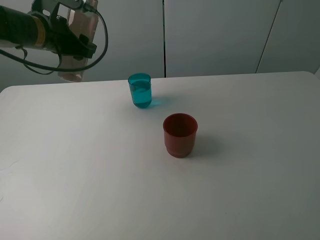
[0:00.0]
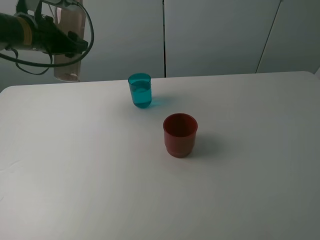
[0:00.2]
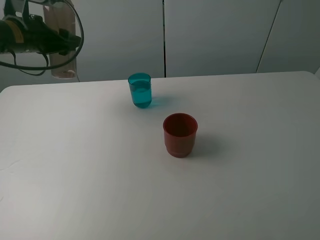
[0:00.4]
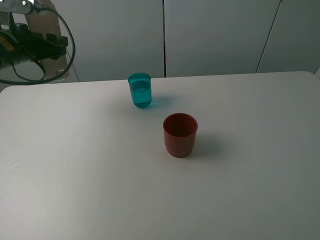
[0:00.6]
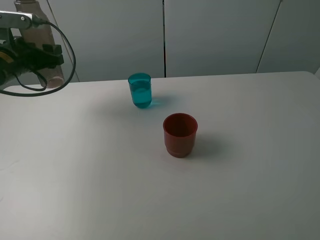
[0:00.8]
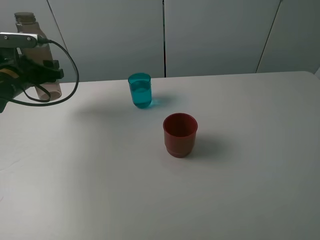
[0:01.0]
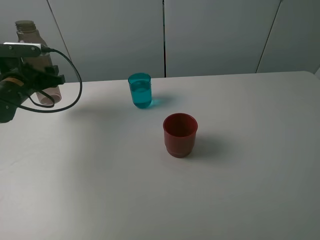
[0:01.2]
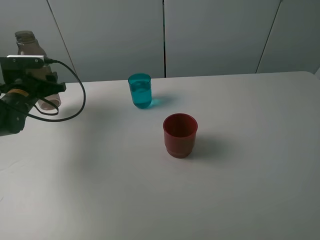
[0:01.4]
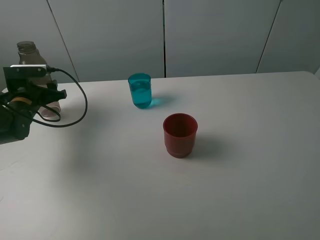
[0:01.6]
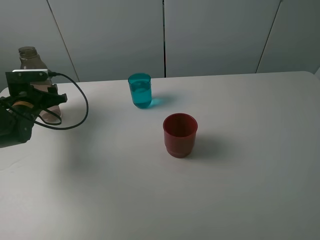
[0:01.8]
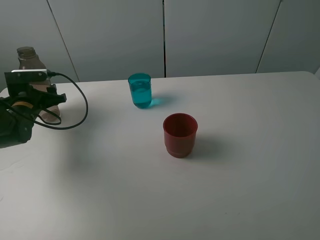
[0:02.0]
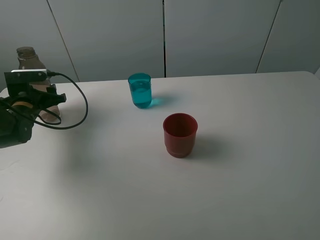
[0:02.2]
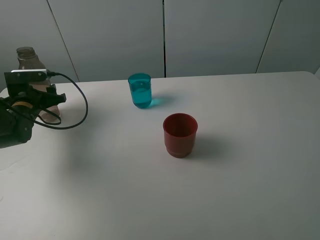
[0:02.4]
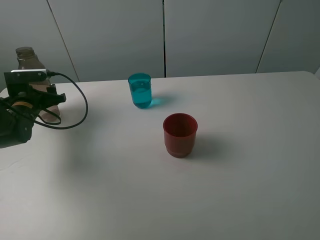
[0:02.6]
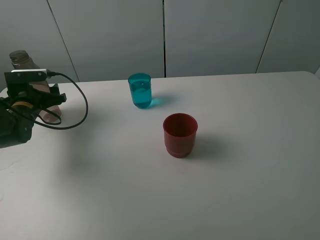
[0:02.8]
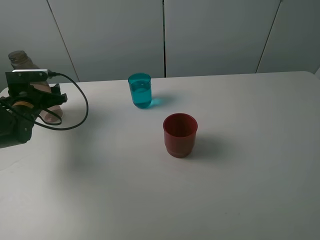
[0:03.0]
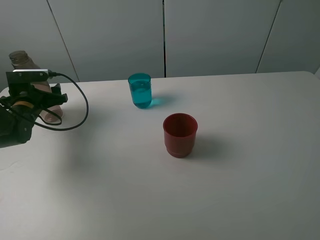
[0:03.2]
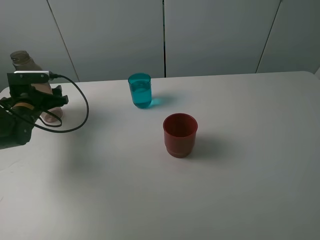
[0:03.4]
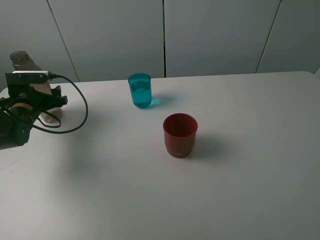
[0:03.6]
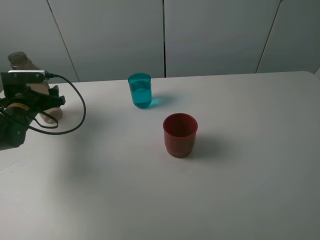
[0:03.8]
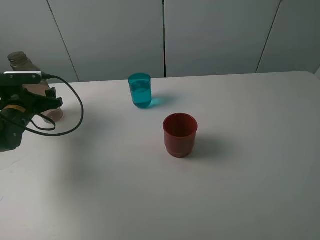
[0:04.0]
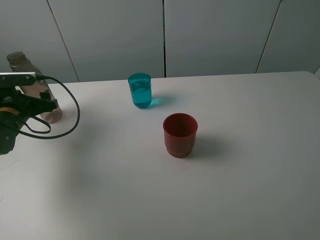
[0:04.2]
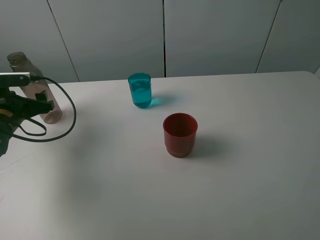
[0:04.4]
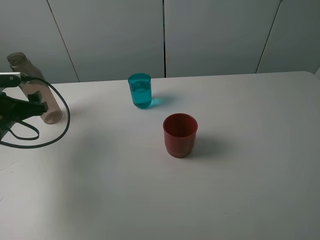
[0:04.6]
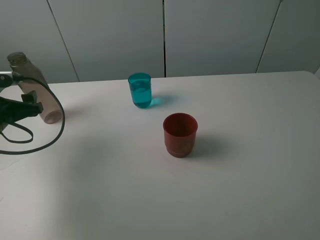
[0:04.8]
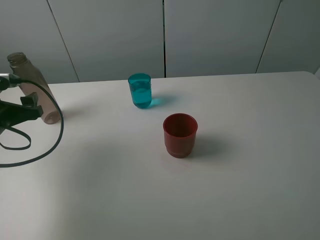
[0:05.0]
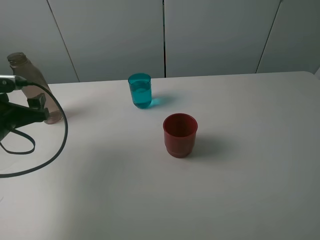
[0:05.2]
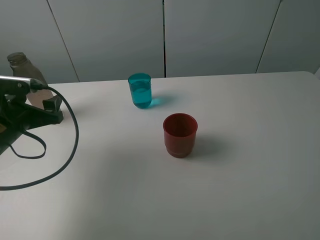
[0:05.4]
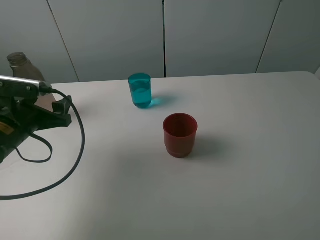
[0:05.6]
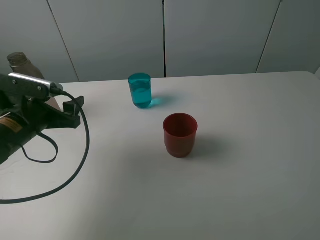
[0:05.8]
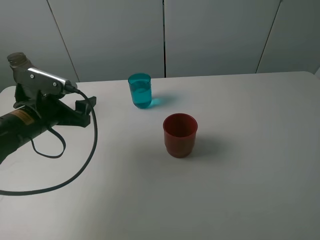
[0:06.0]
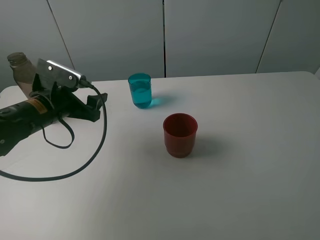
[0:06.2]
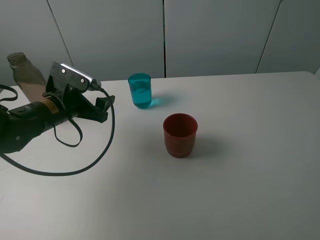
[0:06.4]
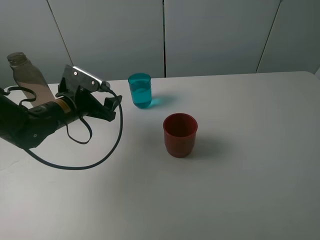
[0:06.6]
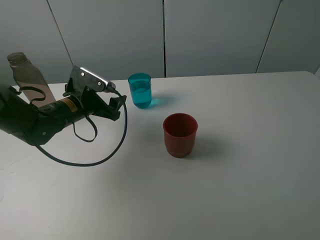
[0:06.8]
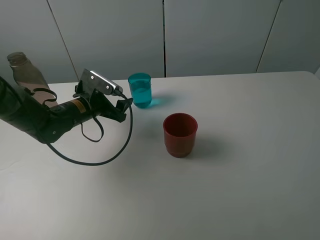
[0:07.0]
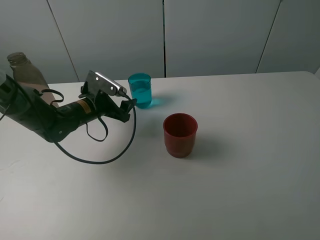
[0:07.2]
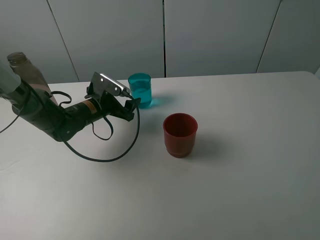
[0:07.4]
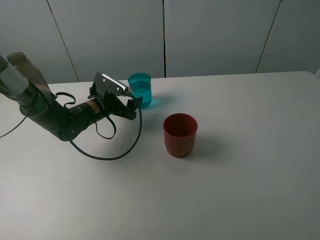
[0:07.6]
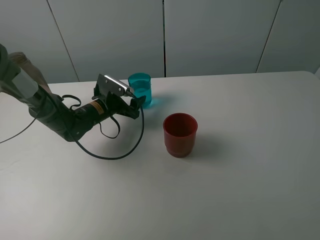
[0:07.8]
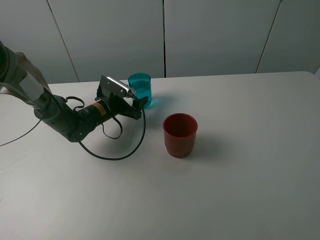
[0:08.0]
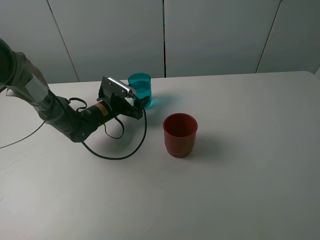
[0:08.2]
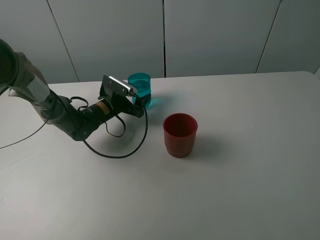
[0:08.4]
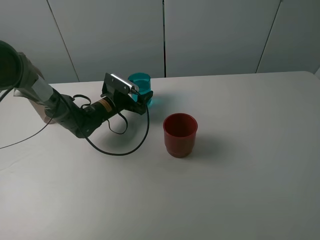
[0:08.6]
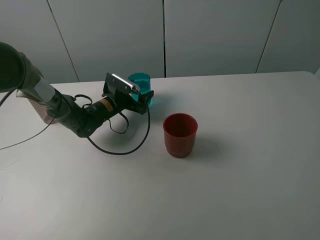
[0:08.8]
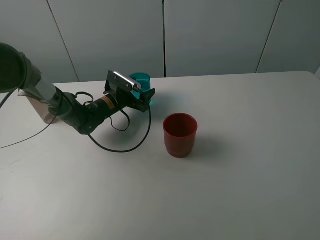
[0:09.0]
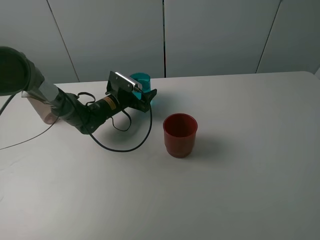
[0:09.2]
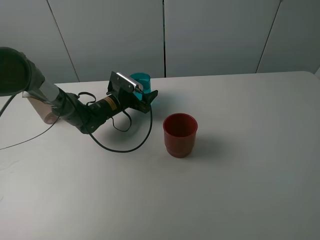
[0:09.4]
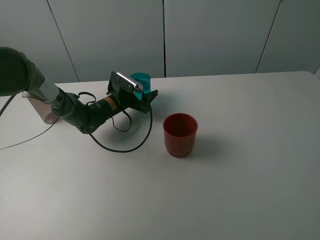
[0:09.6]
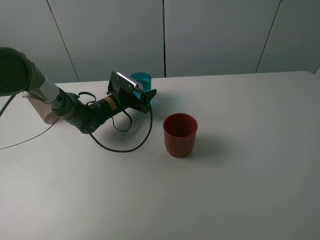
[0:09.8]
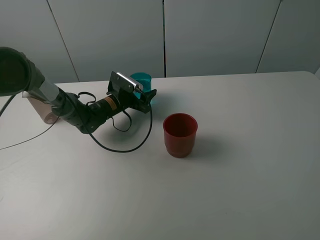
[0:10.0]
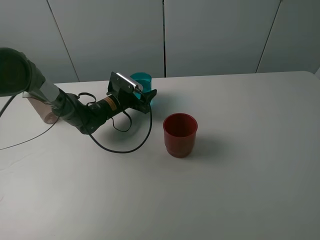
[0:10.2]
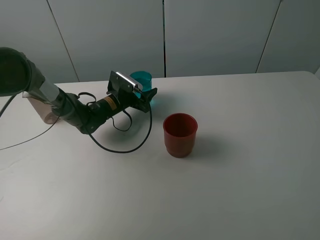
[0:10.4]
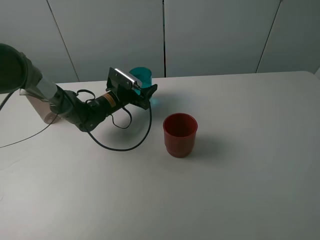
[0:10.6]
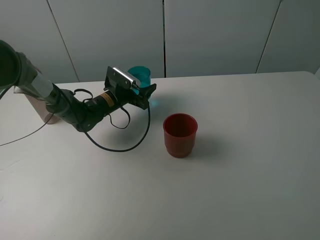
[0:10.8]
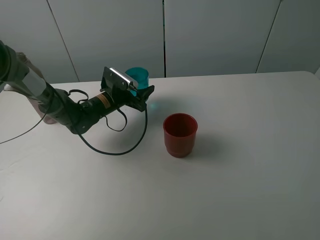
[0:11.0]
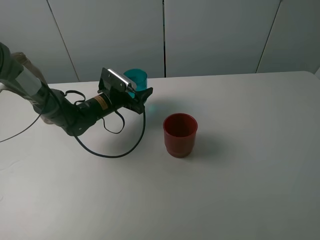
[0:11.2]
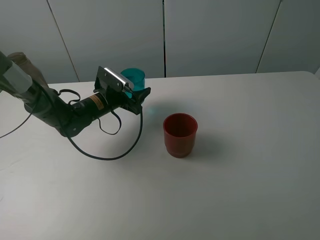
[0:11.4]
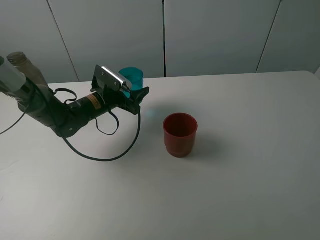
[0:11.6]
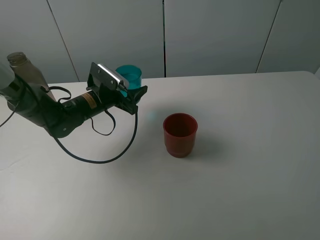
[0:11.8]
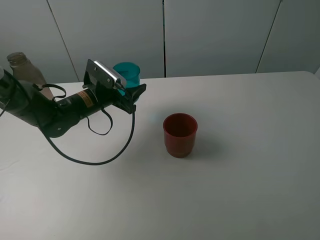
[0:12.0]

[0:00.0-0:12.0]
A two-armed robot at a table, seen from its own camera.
Task of the whole recording: pick up the bottle and pour water into the cup, then pick up the cup containing water and pour it into another cup.
Step, 0:00.0 to 0:03.0: Place the brown bottle with the left gripper.
Step, 0:03.2 to 0:10.0: Grasp the blue cup with the left gripper.
0:00.0 to 0:01.6: The left gripper heads downward and to the left, covering about 20 cm.
0:01.6 to 0:03.0: The left gripper opens.
0:03.0 to 0:04.4: The left gripper heads backward, covering roughly 5 cm.
0:04.4 to 0:06.0: The left gripper is displaced to the right by some 10 cm.
0:06.0 to 0:07.6: The left gripper travels forward, downward and to the right by roughly 15 cm.
0:07.6 to 0:09.0: The left gripper changes place by about 5 cm.
0:09.0 to 0:10.4: The left gripper closes its fingers.
0:10.4 to 0:12.0: The left gripper travels backward and upward by some 10 cm.

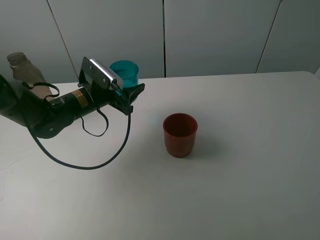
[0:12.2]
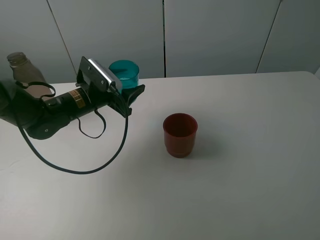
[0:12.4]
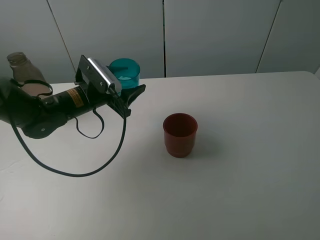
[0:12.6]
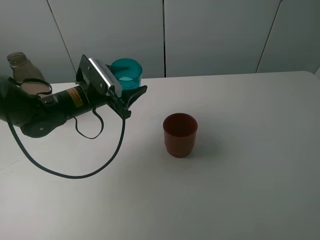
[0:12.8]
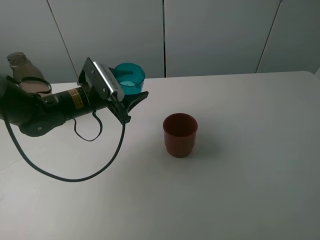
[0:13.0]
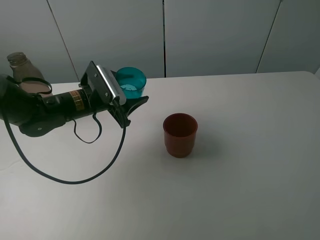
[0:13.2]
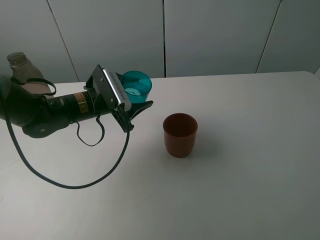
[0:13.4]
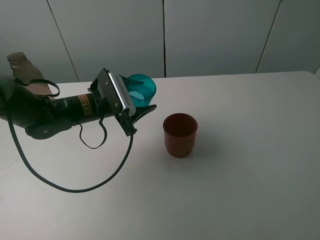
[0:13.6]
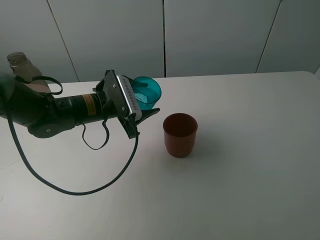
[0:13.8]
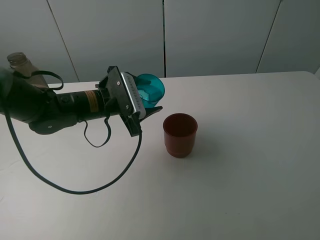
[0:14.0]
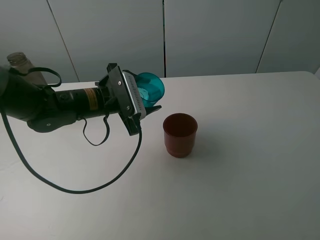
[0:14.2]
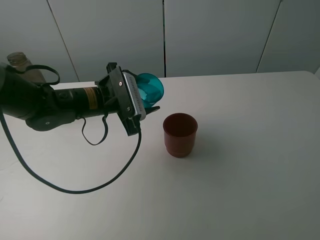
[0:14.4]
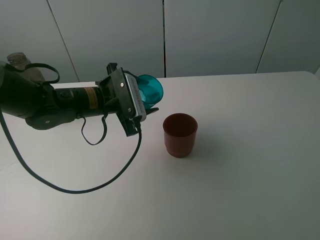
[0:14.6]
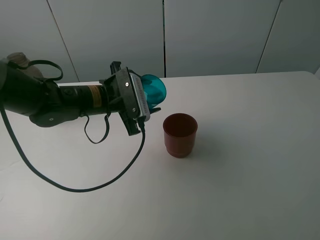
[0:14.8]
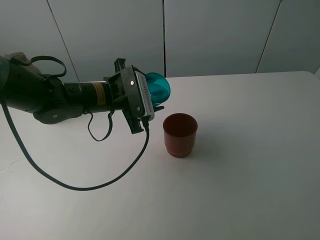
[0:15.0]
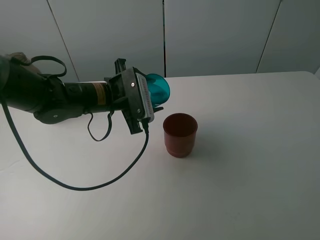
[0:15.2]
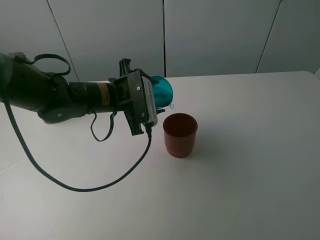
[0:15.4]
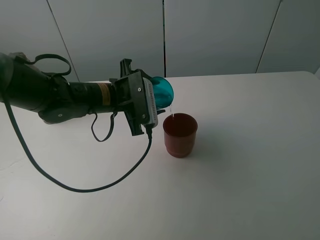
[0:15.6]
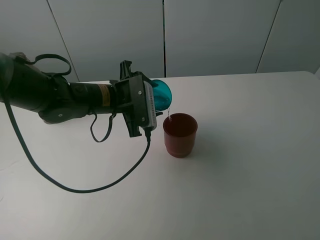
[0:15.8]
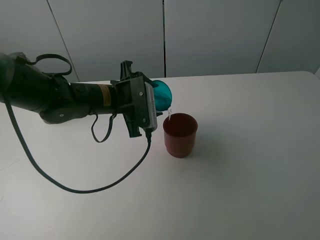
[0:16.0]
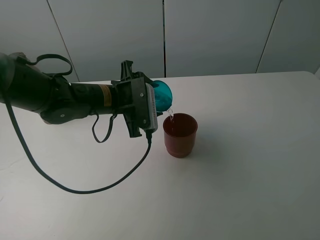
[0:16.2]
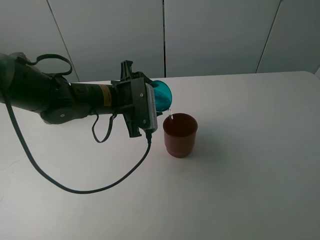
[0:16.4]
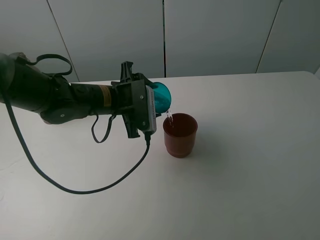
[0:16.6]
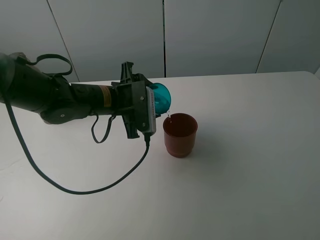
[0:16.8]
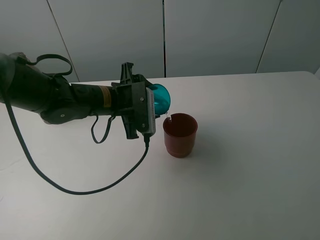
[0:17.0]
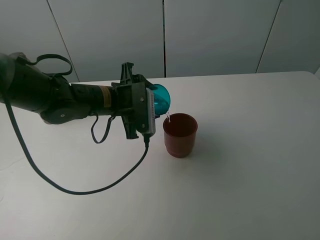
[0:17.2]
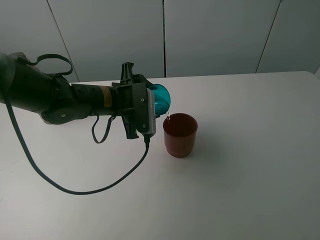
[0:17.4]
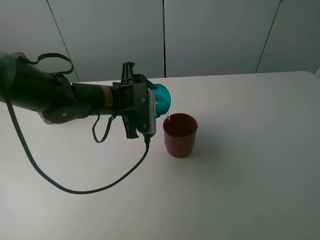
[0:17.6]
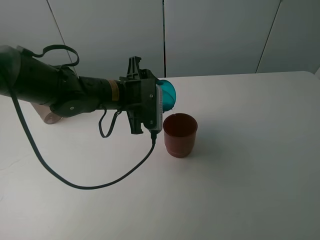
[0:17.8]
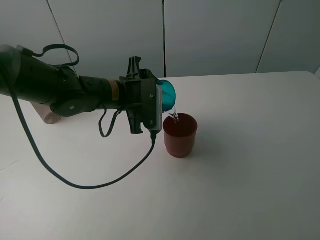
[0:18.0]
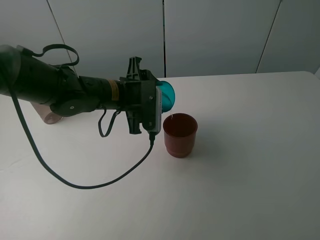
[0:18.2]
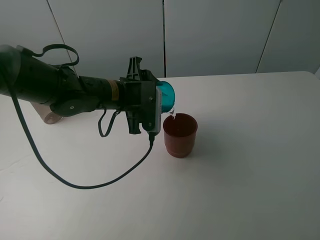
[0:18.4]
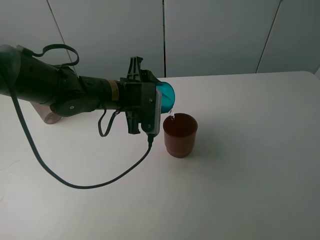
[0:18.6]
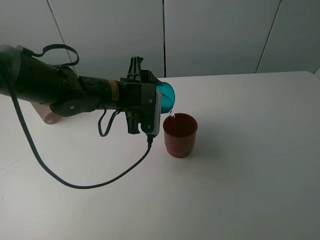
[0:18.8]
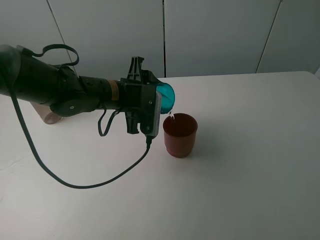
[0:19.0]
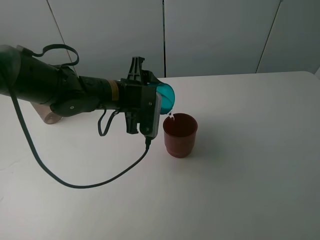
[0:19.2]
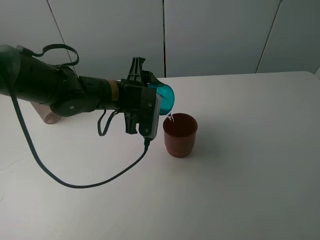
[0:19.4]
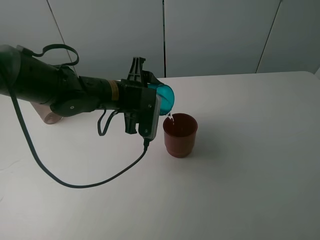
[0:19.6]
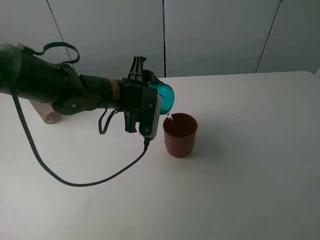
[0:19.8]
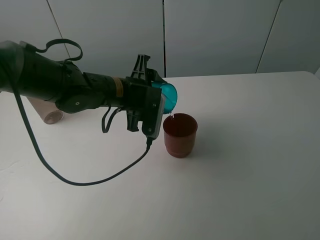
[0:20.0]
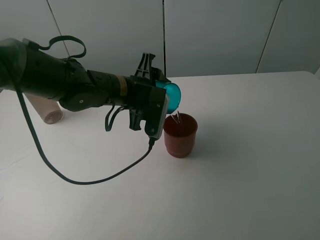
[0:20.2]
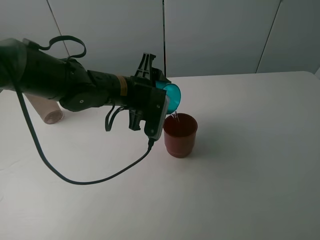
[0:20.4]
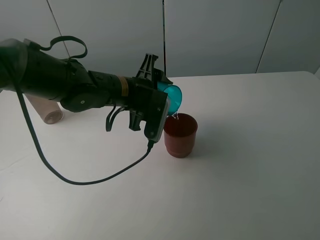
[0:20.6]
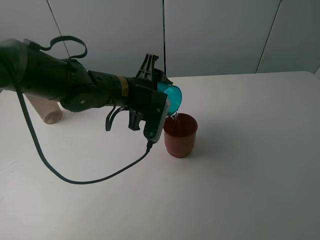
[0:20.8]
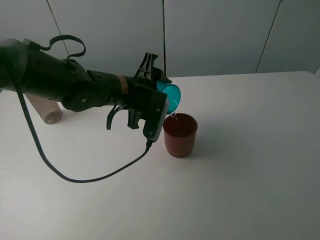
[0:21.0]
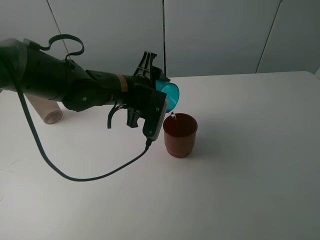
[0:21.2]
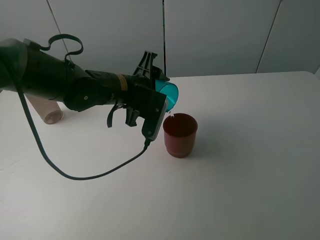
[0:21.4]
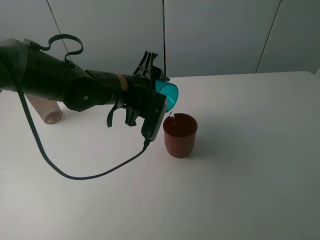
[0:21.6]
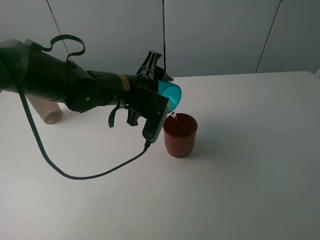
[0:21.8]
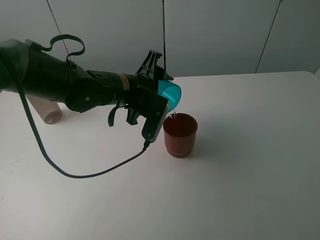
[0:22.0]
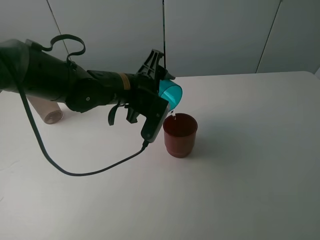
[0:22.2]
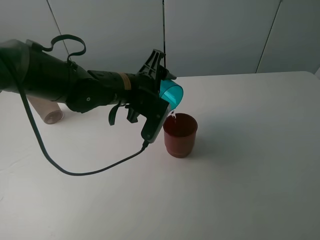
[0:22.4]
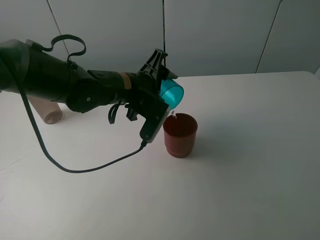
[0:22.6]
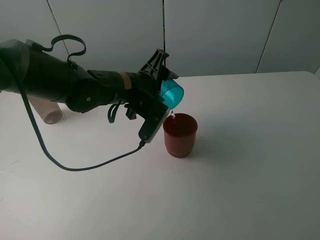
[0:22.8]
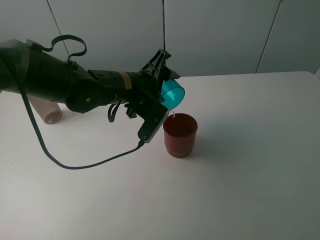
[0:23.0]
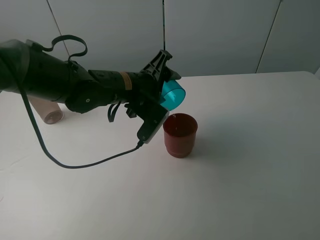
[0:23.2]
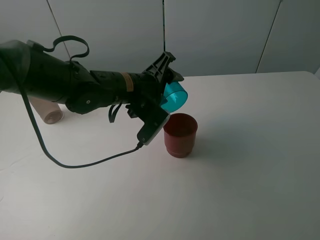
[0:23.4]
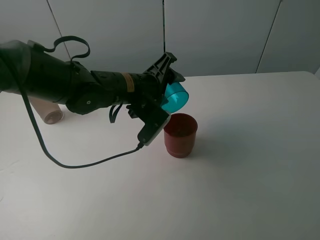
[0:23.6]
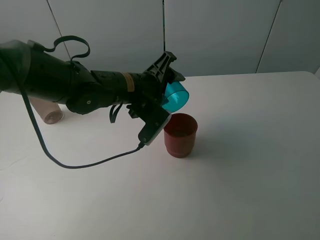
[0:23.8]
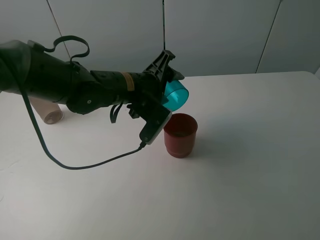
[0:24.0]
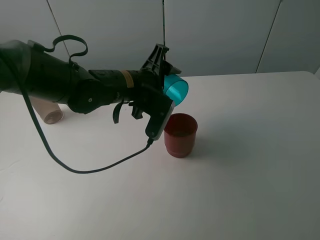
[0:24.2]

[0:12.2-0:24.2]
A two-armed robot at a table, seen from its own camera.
Task of the whole recording: pick up the bottle and pour water into the cup, then pick up the cup containing water and pour it into another cup.
Step, 0:12.2 to 0:23.4: Pour water from blue cup to red cup with the left gripper.
0:12.2 to 0:13.8: The left gripper moves about 5 cm.
0:13.8 to 0:15.2: There are only small adjustments of the grippers.
0:15.2 to 0:18.2: The grippers stay close to where they were, moving slightly.
0:18.2 to 0:19.8: The grippers stay close to where they were, moving slightly.
0:19.8 to 0:21.2: The grippers make only small movements.
0:21.2 to 0:22.6: The grippers move only a little.
0:22.6 to 0:24.2: The grippers make only small movements.
